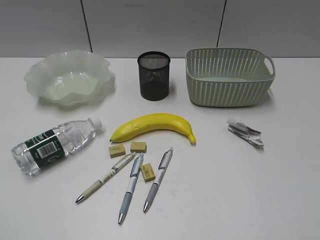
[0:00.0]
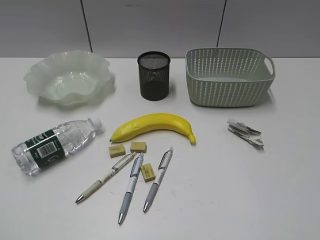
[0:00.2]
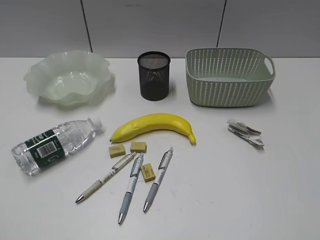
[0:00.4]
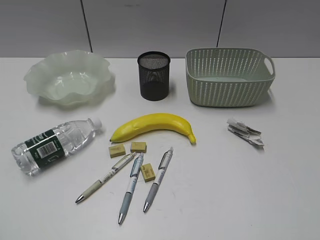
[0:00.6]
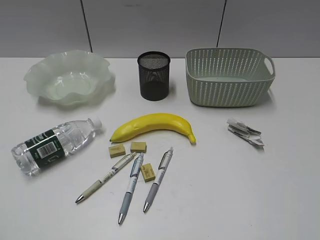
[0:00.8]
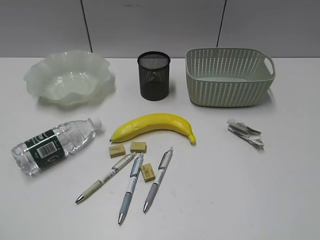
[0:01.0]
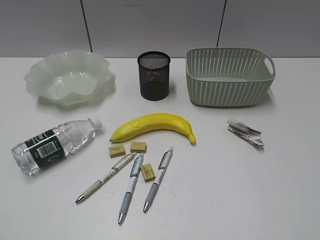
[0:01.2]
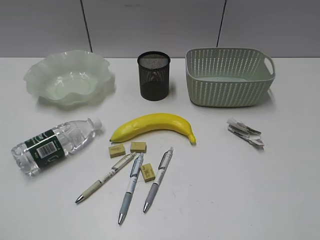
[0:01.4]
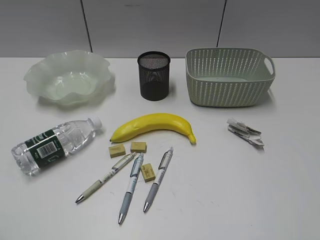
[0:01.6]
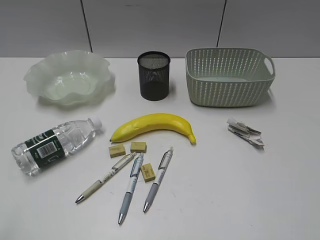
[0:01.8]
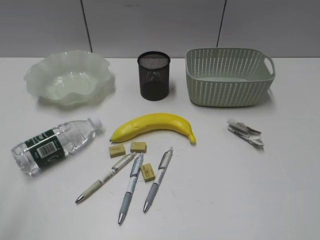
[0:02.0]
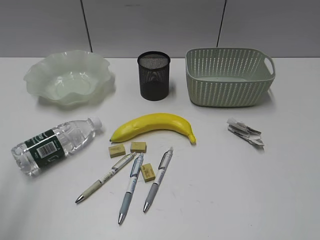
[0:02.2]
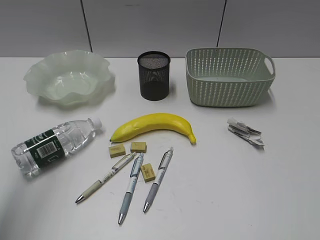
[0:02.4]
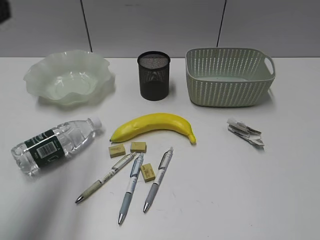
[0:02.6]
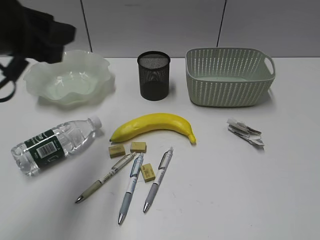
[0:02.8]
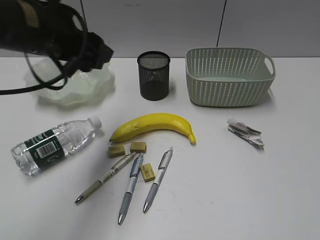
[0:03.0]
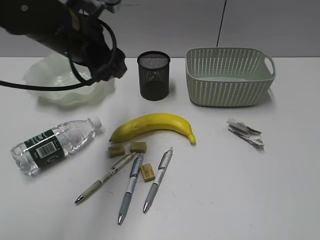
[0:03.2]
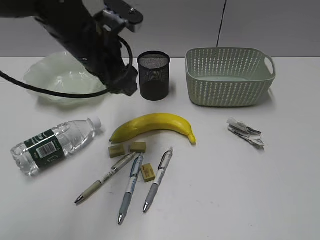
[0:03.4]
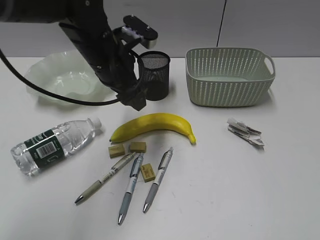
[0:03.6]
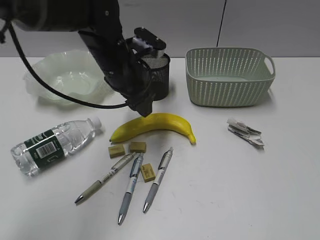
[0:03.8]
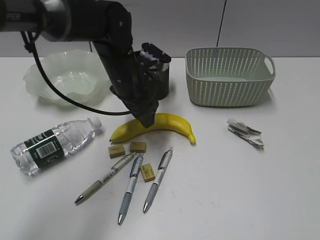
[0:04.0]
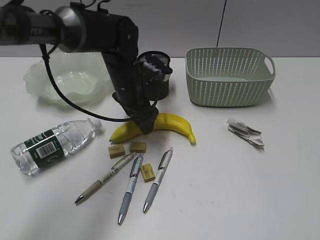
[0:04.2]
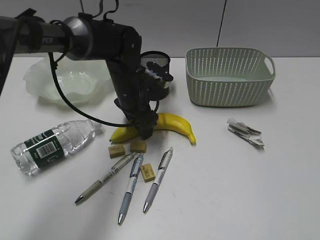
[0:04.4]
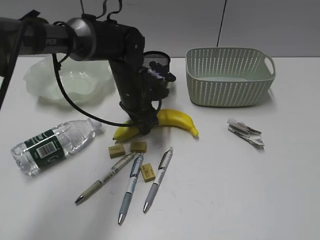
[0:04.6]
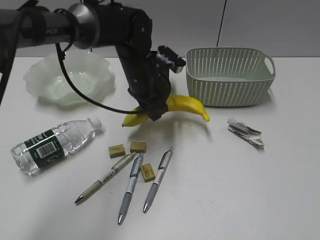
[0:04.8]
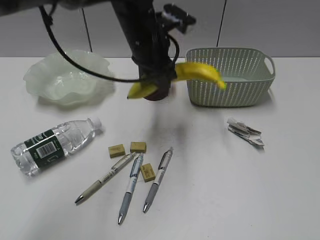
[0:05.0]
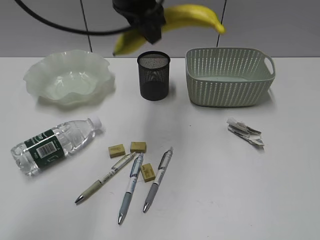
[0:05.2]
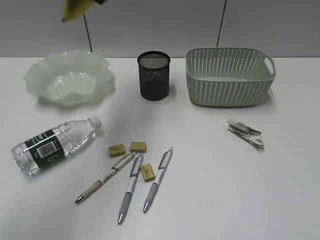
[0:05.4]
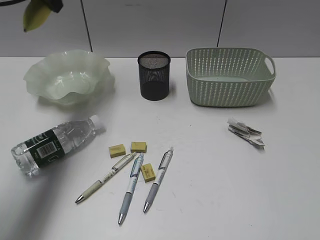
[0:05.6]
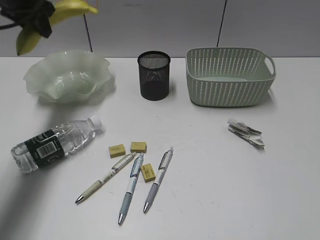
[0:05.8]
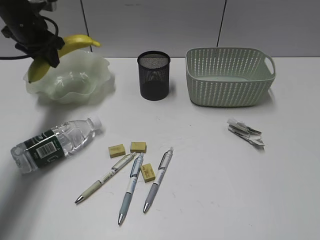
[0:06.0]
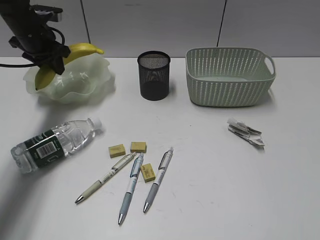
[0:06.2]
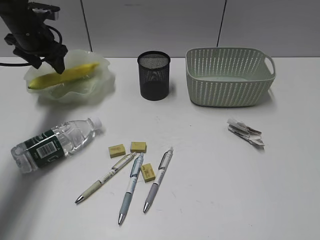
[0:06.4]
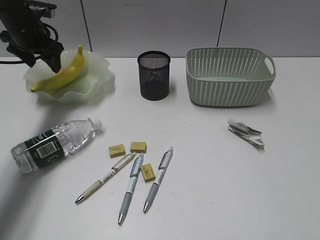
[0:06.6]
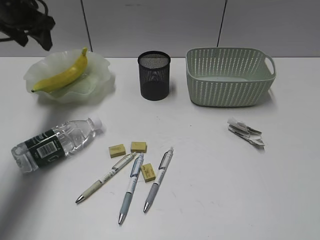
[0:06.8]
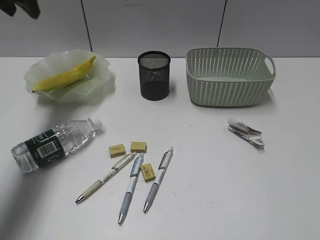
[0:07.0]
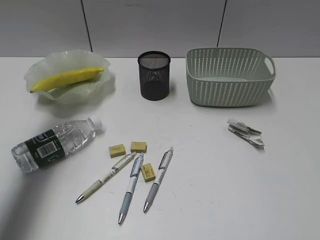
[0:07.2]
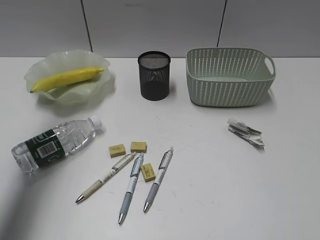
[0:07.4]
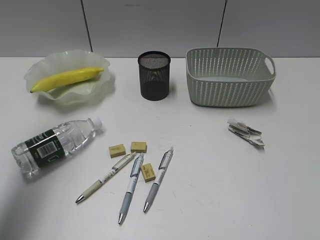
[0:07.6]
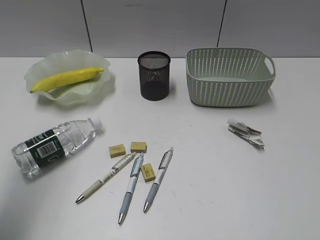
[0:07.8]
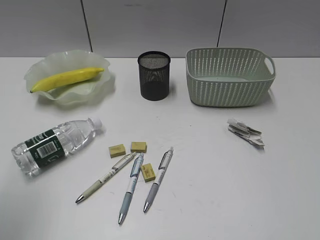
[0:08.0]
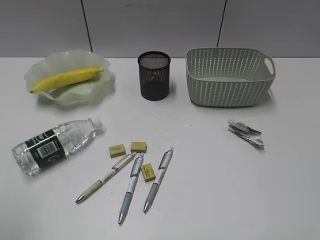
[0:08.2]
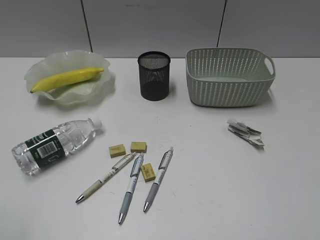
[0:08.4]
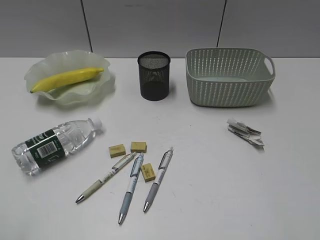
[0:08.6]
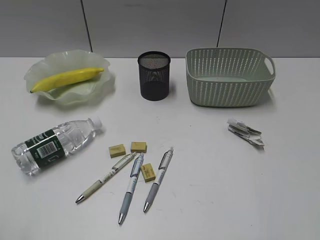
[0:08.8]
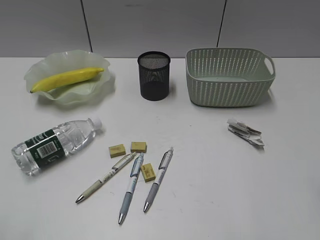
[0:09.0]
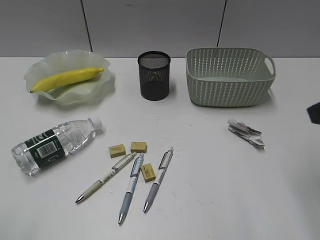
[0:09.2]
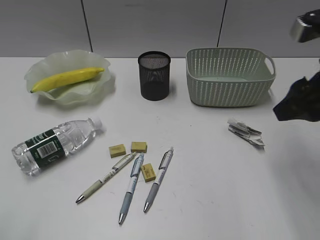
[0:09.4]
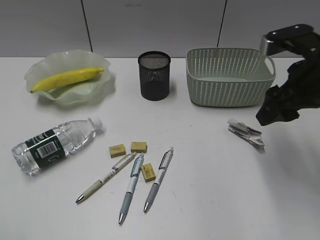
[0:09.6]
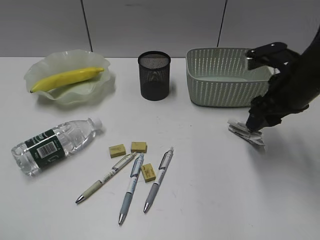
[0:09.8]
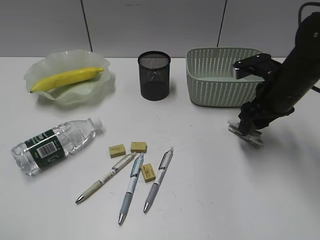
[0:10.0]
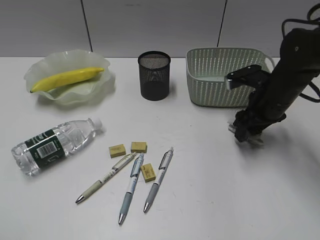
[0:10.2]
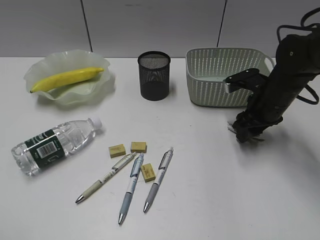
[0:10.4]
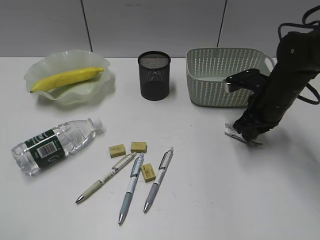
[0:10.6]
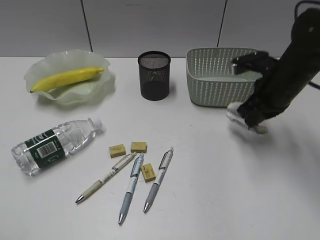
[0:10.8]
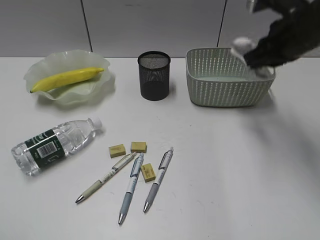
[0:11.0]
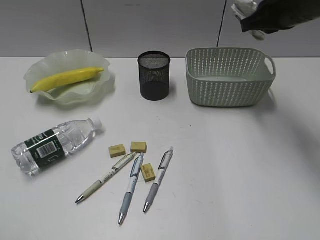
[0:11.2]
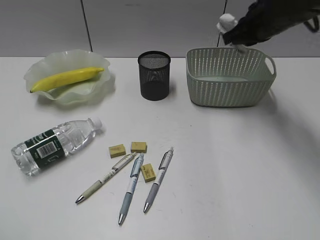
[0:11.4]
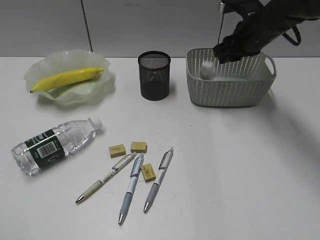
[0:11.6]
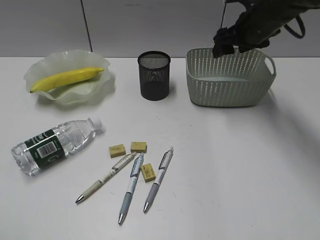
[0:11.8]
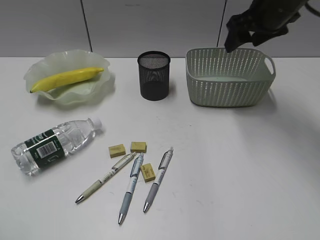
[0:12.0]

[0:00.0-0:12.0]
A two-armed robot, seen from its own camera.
Step, 0:01.6 to 0:04.6: Grasp the banana with left gripper.
Step, 0:04.8 to 0:06.4: Place the banana in the plate with left gripper.
Step, 0:06.6 to 0:10.6: Grasp the waste paper with right gripper.
Step, 0:10.8 to 0:11.8: Place the waste paper in the basket with right gripper.
0:01.6 to 0:03.0: The left gripper moves forward and to the right, roughly 35 cm, and opens up.
0:03.0 to 0:04.4: The left gripper is displaced downward, forward and to the right by about 20 cm.
0:04.4 to 0:06.0: The left gripper is displaced to the left, forward and upward by about 25 cm, and closes.
0:06.0 to 0:07.6: The left gripper heads backward and upward, covering roughly 30 cm.
0:07.6 to 0:09.0: The left gripper moves backward and downward, roughly 30 cm.
0:09.0 to 0:10.4: The right gripper moves forward and downward, roughly 30 cm.
0:10.4 to 0:12.0: The right gripper moves up and down over about 15 cm, changing direction 2 times, and closes and opens again.

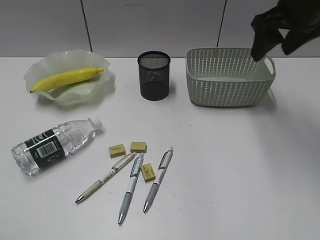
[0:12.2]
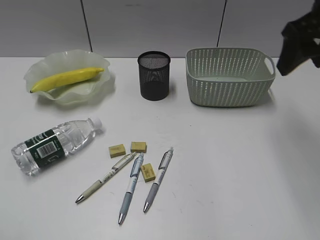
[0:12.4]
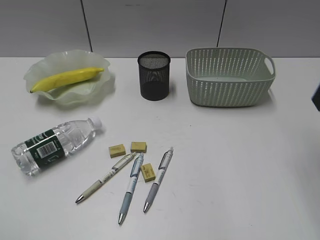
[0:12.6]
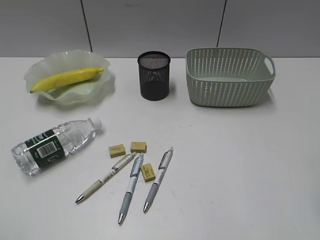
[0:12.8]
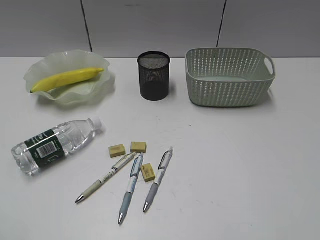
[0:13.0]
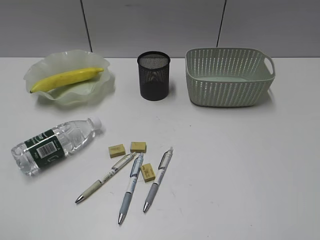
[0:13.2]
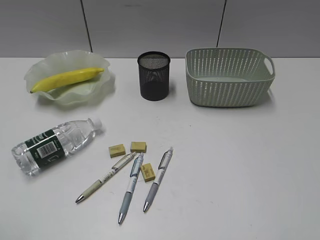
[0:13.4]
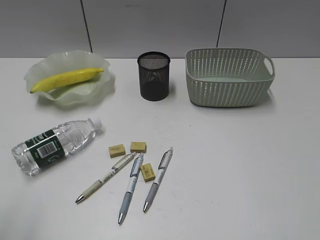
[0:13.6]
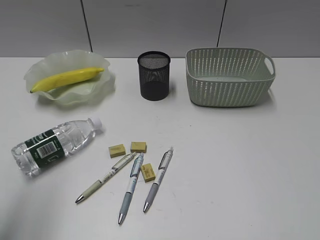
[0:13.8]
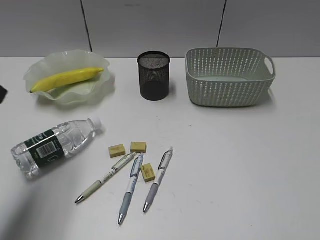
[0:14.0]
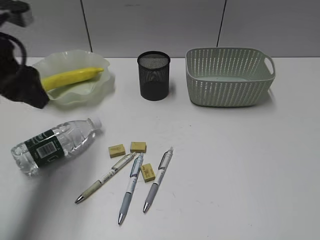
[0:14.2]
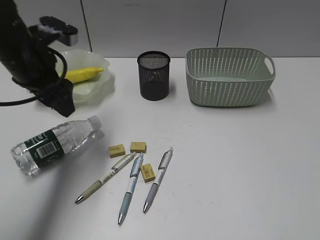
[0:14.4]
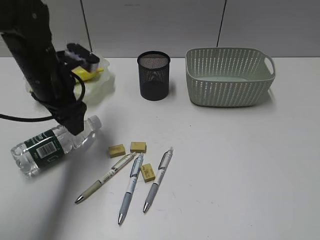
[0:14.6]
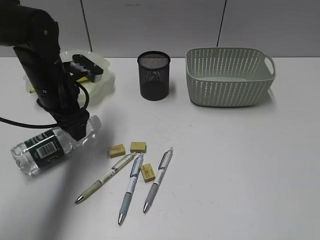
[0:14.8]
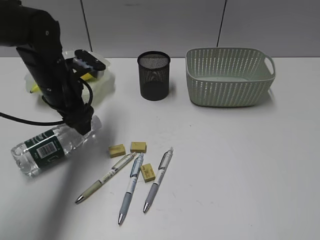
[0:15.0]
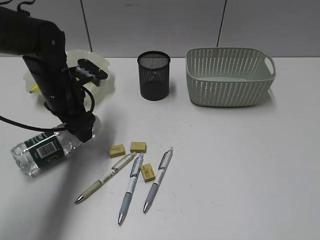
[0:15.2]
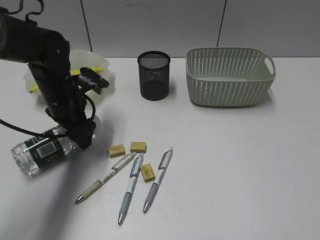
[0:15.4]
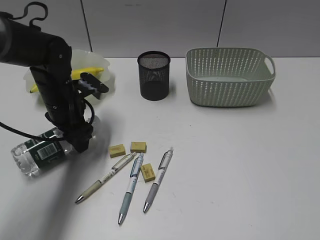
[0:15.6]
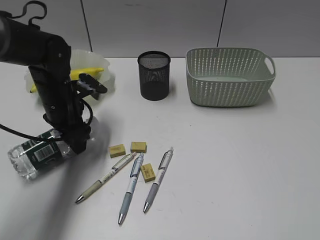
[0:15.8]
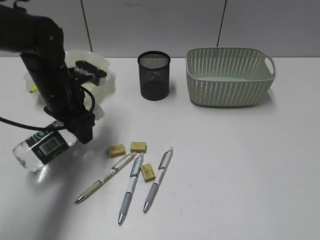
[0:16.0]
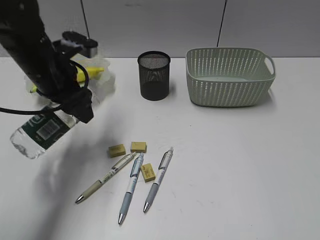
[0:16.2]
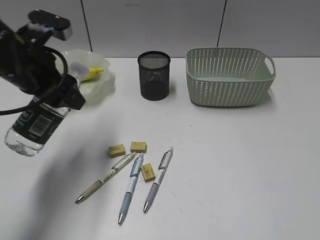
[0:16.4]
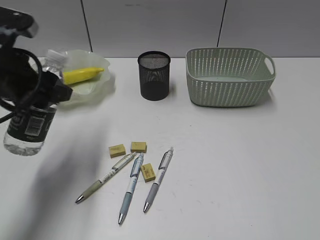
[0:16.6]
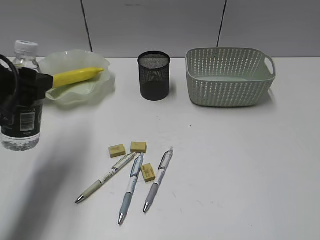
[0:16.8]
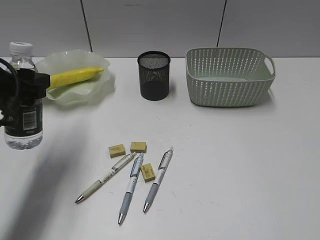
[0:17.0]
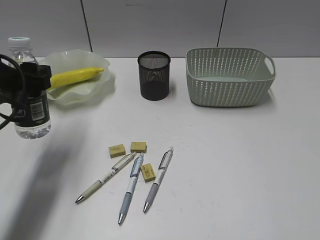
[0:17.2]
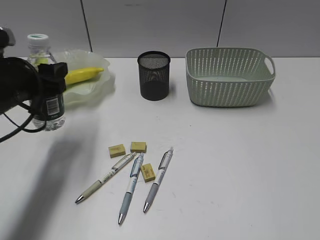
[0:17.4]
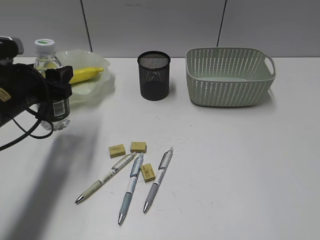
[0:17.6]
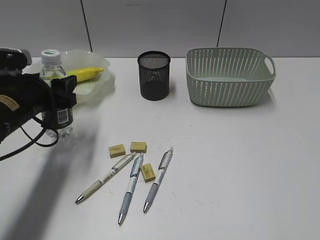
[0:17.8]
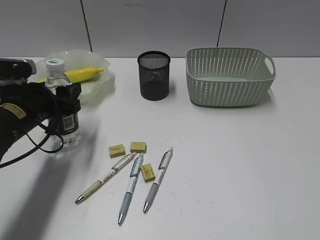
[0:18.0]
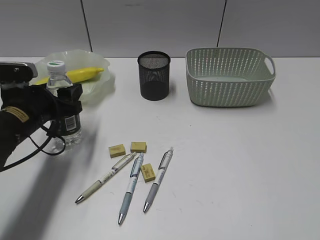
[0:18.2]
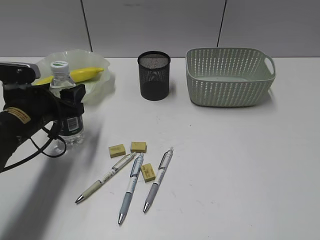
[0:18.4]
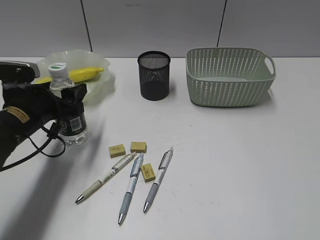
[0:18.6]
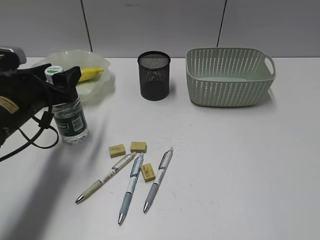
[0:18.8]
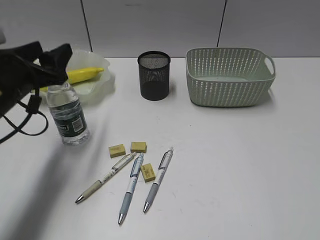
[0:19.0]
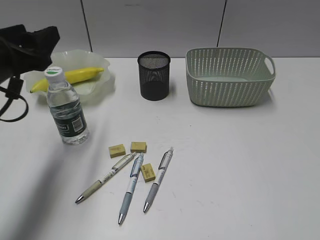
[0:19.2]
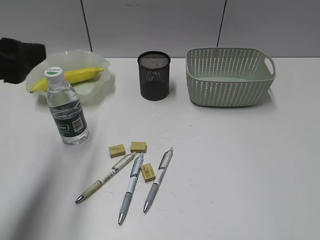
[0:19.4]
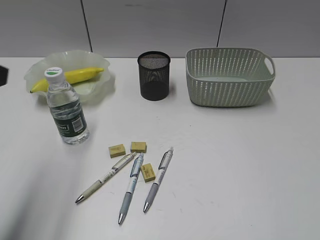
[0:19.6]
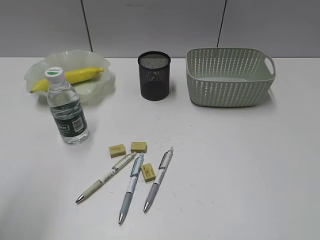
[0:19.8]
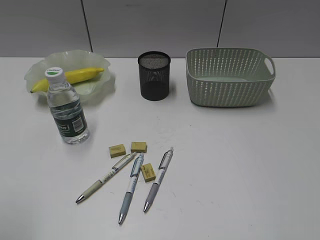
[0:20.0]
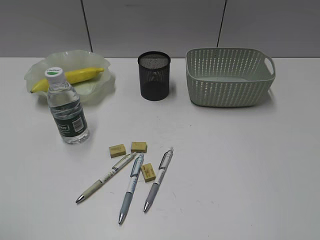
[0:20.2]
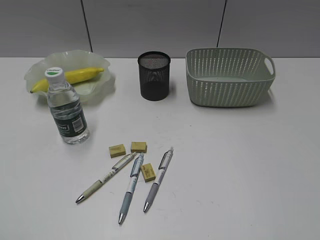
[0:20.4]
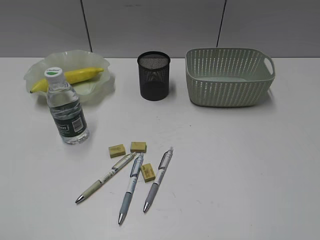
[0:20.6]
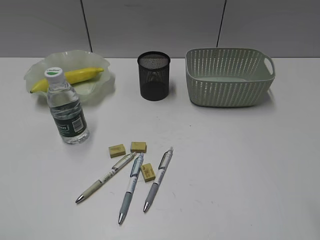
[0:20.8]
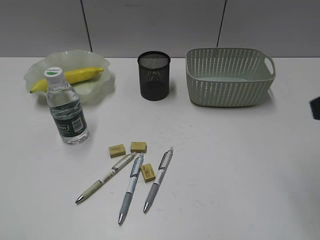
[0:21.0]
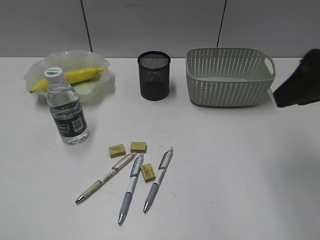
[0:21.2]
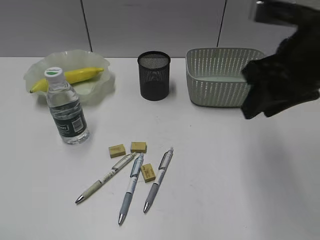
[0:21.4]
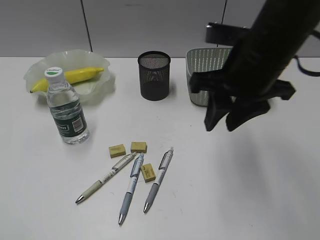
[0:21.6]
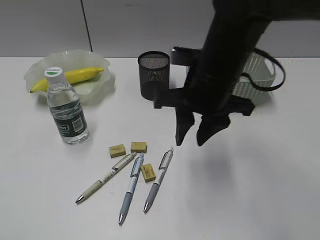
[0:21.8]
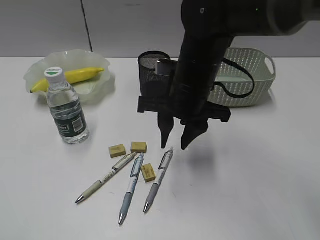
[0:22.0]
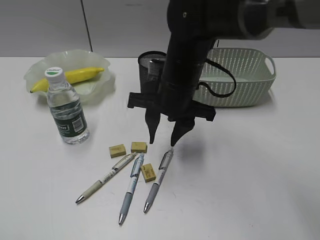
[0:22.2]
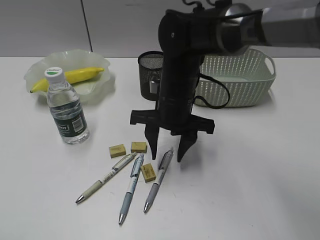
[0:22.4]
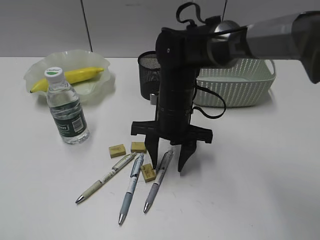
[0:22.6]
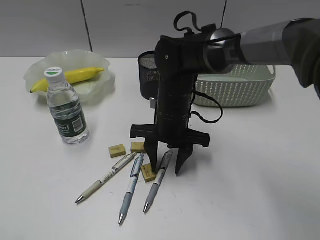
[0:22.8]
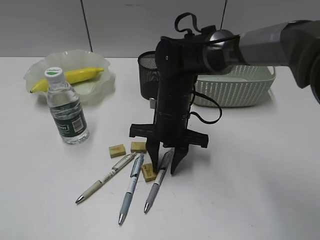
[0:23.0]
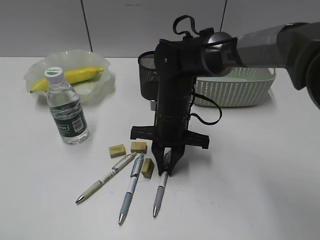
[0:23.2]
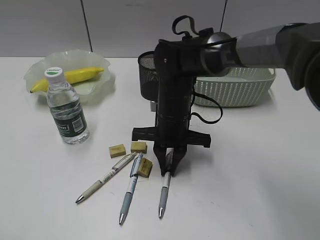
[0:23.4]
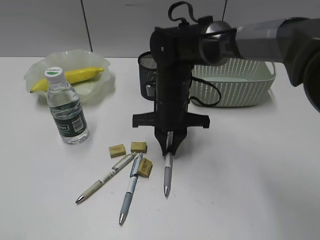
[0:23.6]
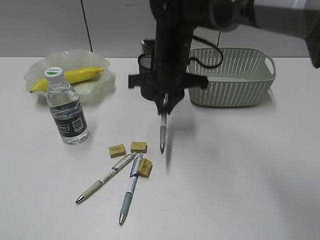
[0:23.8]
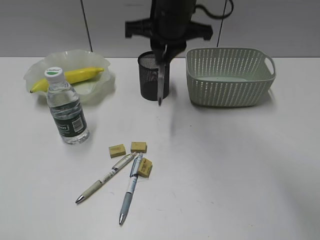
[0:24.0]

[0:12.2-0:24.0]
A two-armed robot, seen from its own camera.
Step, 0:12.2 to 0:15.6: Grasp the bottle with left gripper.
Step, 0:15.8 to 0:19.0: Stand the bottle with left gripper.
Step, 0:19.2 to 0:23.2: Grasp the gray pen with right gripper.
0:12.2 to 0:13.6: The right gripper is displaced backward by some 40 cm.
0:13.6 to 0:15.2: The left gripper moves forward, downward and to the right, about 40 cm, and opens up.
0:15.2 to 0:16.6: The left gripper goes about 15 cm backward and upward.
0:16.6 to 0:18.2: The left gripper goes roughly 10 cm downward.
0:18.2 to 0:19.6: The left gripper shifts about 20 cm upward and backward.
0:19.6 to 0:21.0: The left gripper goes some 20 cm backward. Meanwhile the right gripper shifts roughly 15 cm forward.
0:21.0 to 0:22.6: The right gripper goes roughly 35 cm to the left, downward and forward.
0:22.6 to 0:24.0: The right gripper moves upward and forward, some 15 cm, and closes its fingers.
